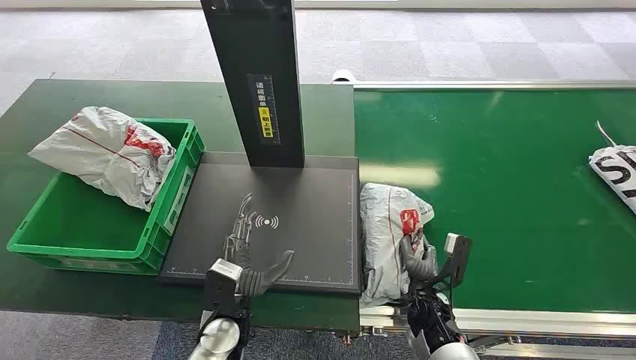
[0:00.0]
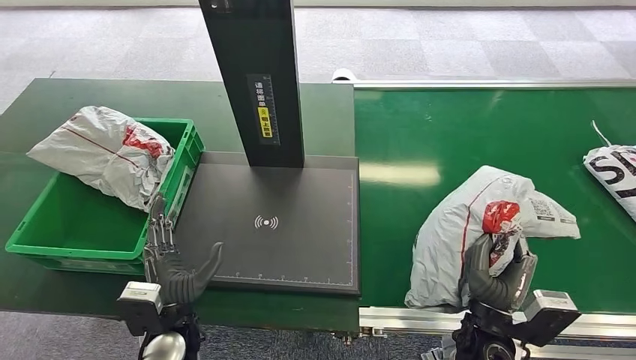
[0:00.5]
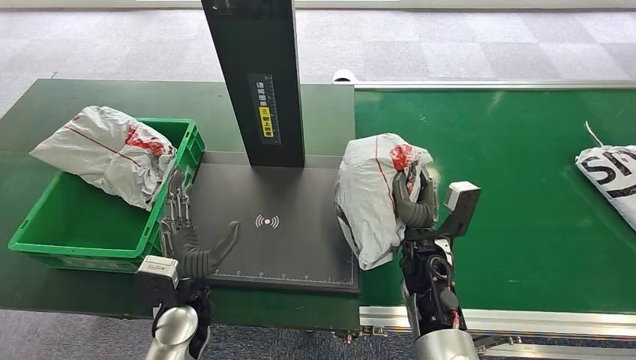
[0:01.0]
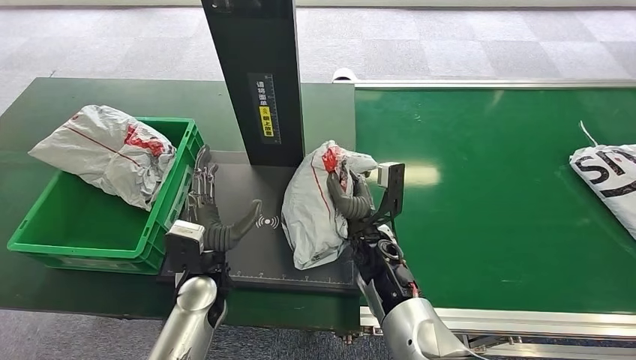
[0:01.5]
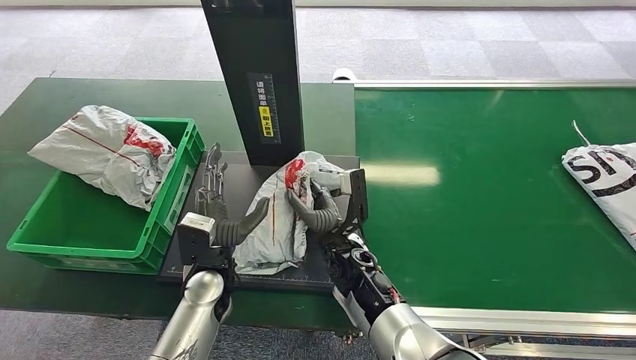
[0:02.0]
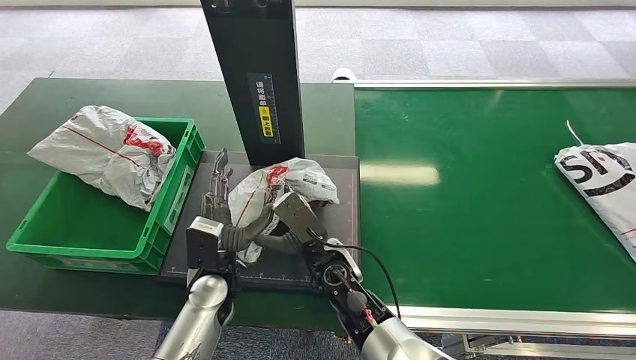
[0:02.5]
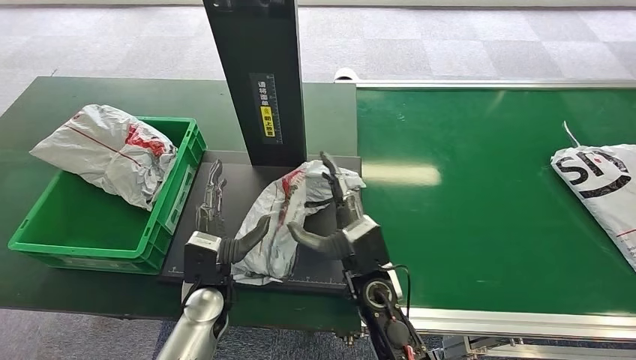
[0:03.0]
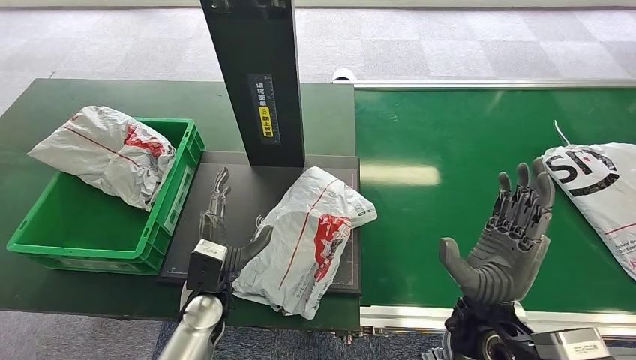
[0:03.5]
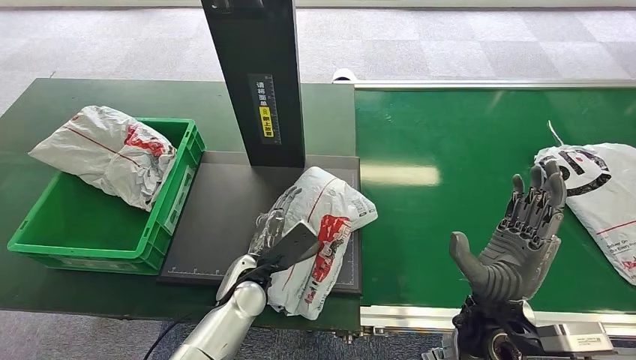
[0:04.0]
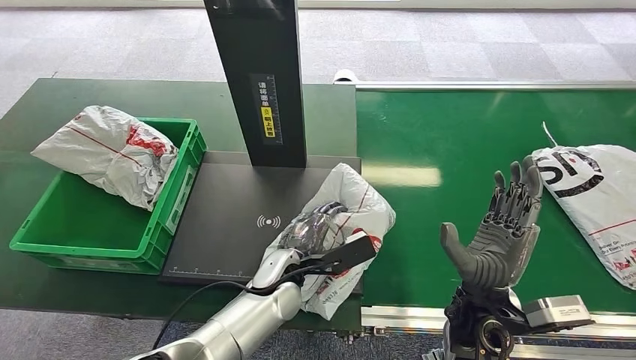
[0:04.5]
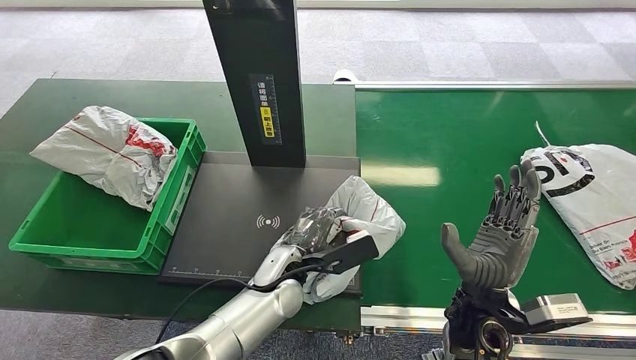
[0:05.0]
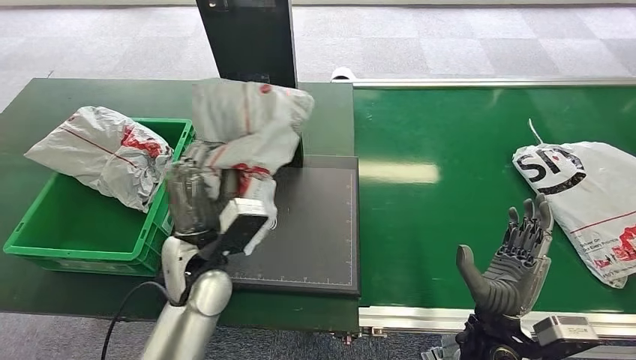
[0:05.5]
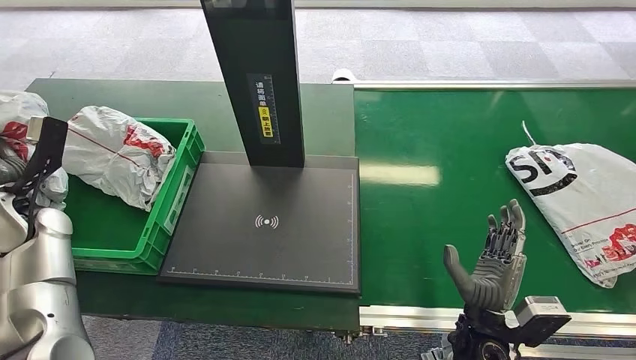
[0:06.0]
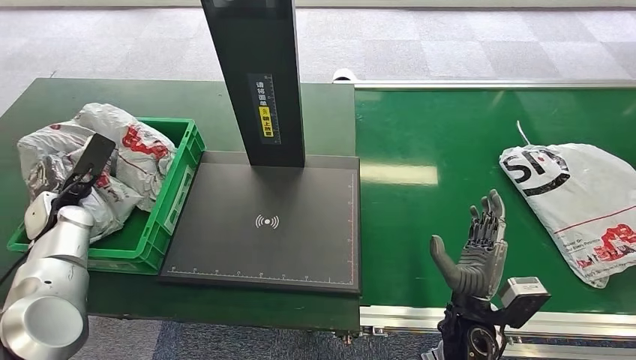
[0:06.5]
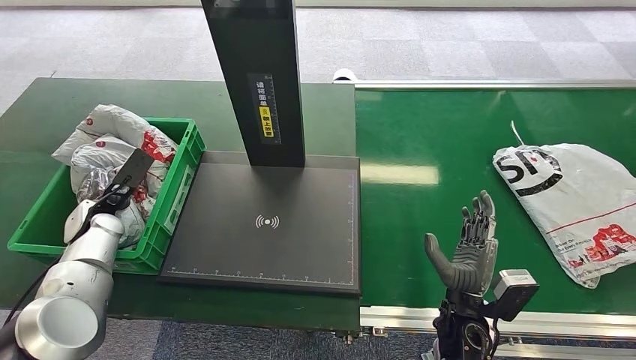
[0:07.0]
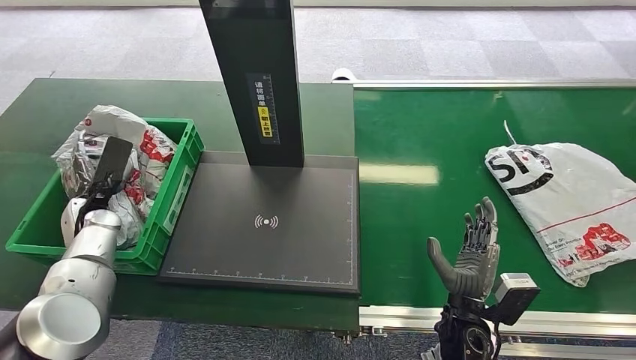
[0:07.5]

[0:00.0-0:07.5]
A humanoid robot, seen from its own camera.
Step, 0:00.0 to 0:01.0: Pick up the package from the conveyor belt.
Step, 0:01.5 to 0:02.5: Place the package onto the inbound machine.
Step, 0:03.0 to 0:05.5: Pick up the package from the inbound machine.
Step, 0:06.0 to 0:07.5: Place the package into the parcel locker.

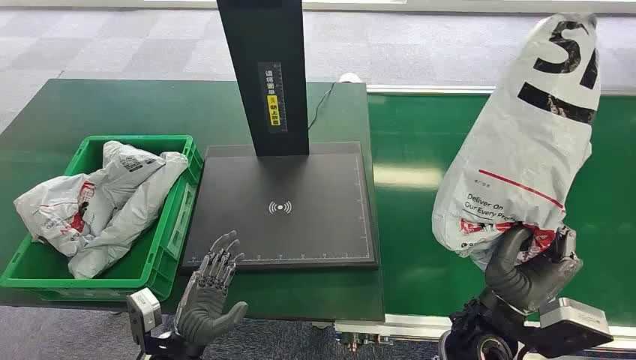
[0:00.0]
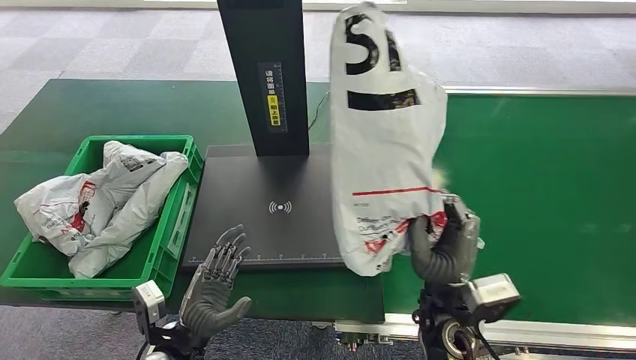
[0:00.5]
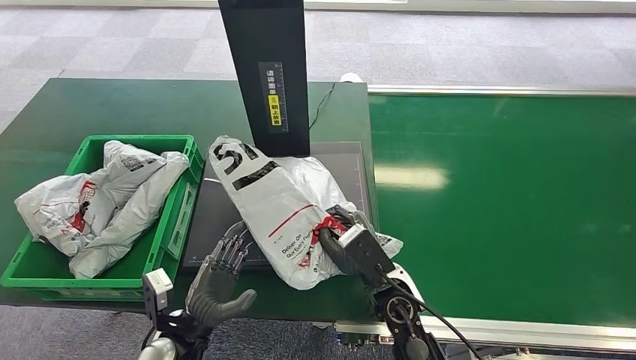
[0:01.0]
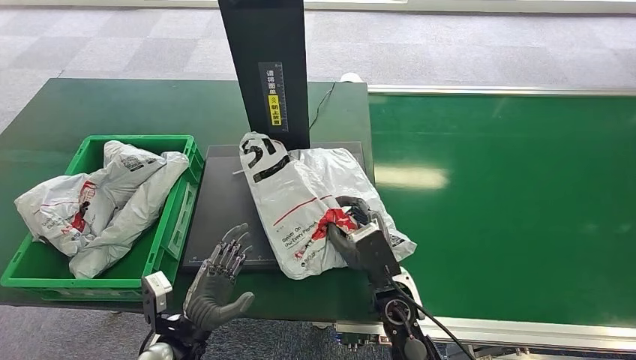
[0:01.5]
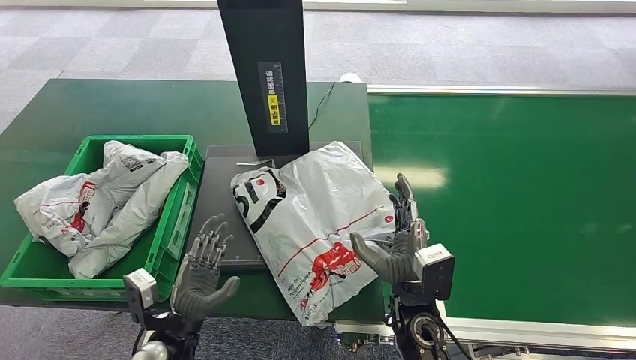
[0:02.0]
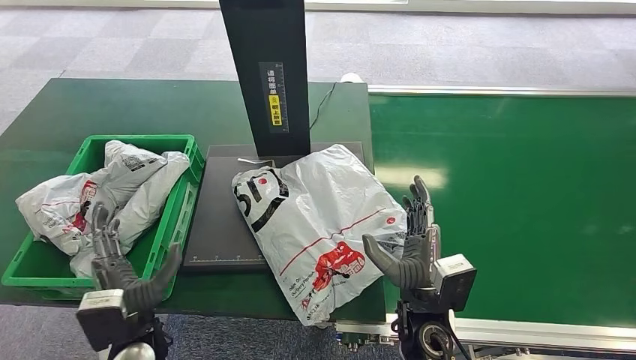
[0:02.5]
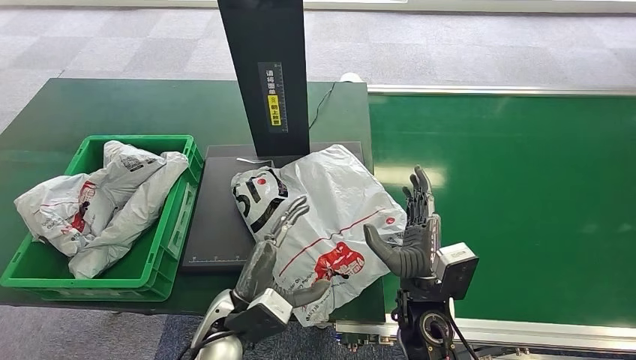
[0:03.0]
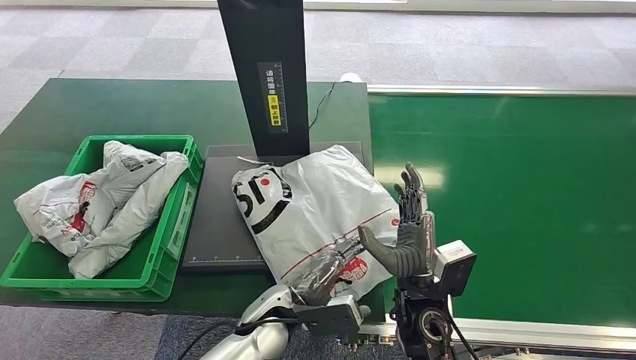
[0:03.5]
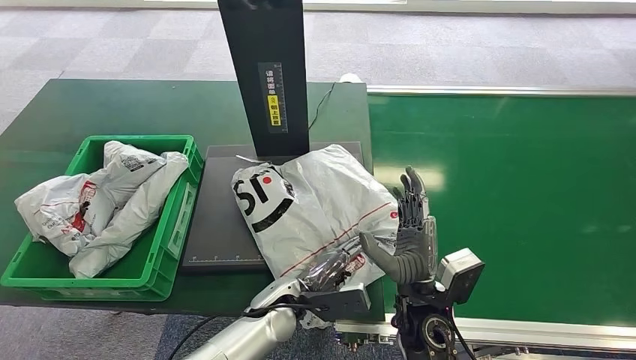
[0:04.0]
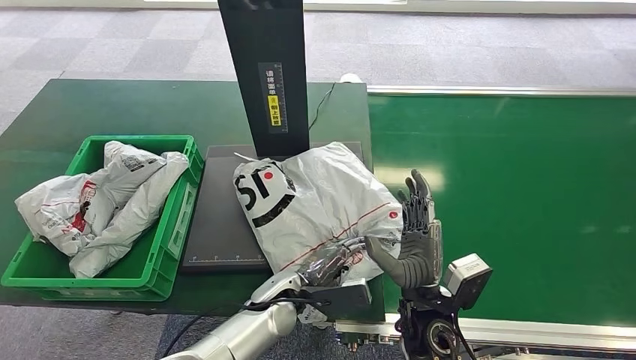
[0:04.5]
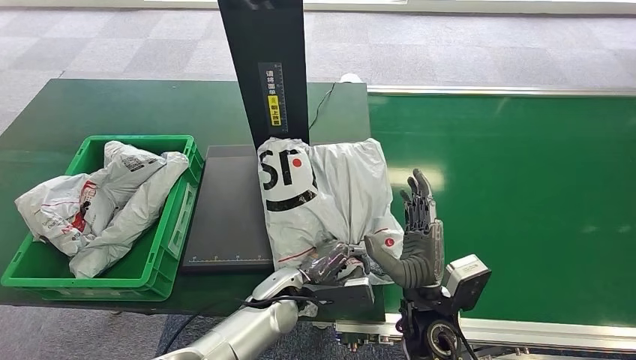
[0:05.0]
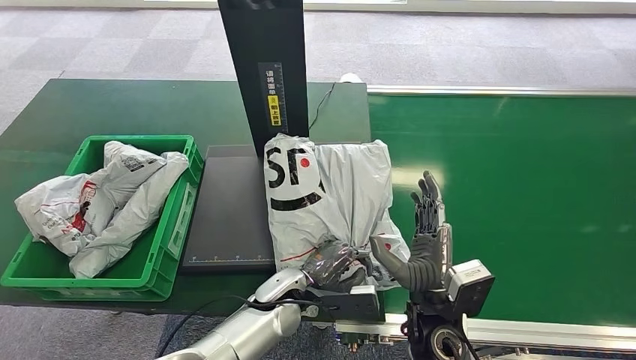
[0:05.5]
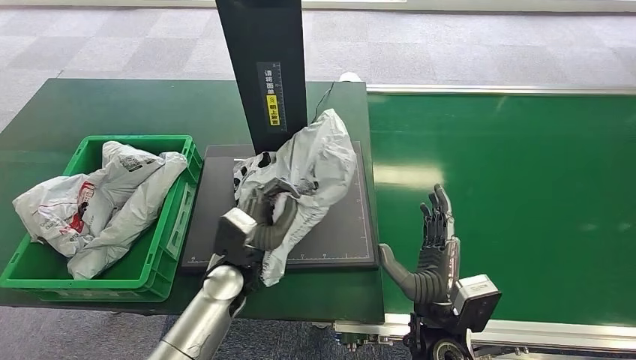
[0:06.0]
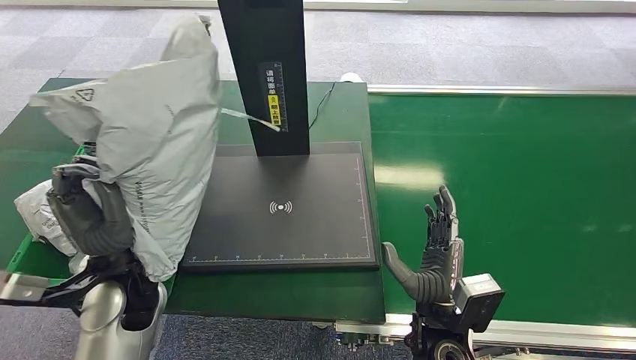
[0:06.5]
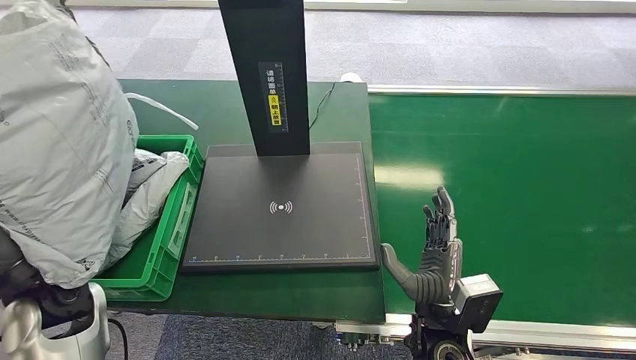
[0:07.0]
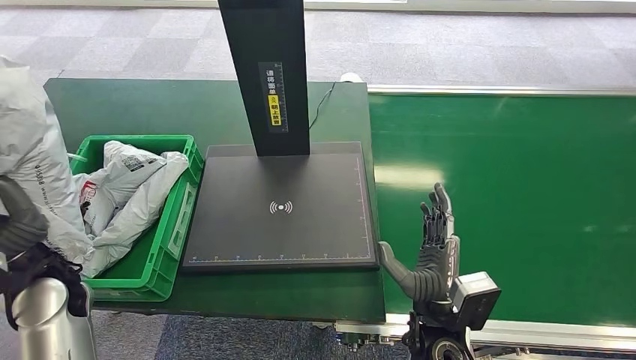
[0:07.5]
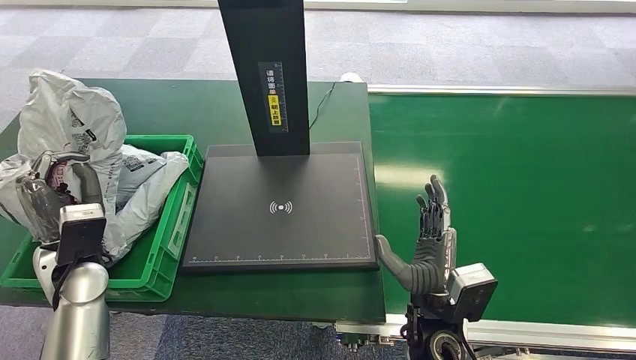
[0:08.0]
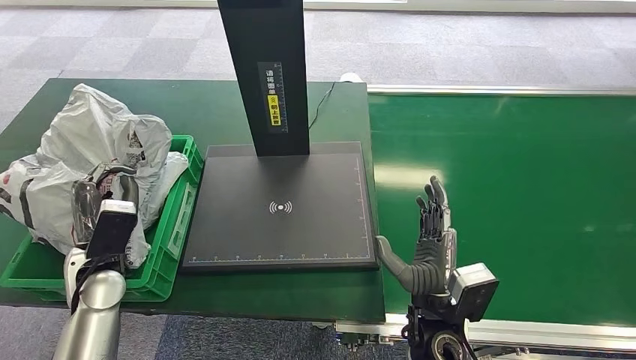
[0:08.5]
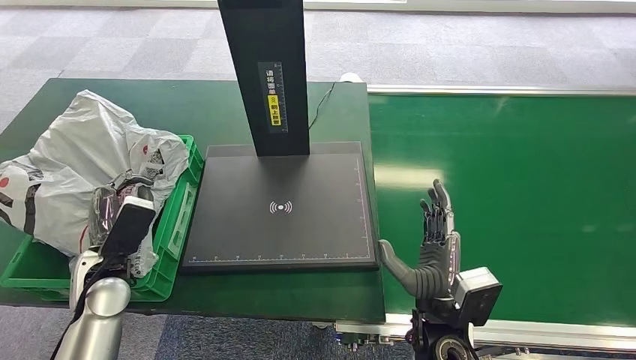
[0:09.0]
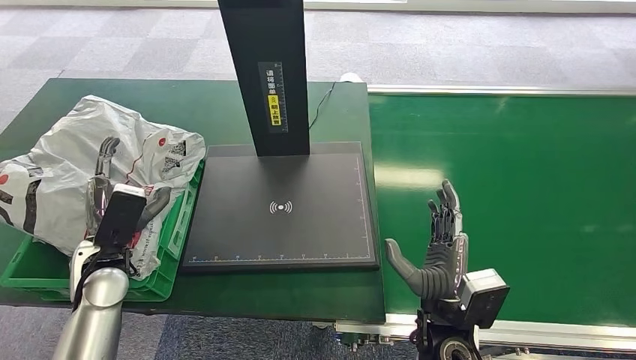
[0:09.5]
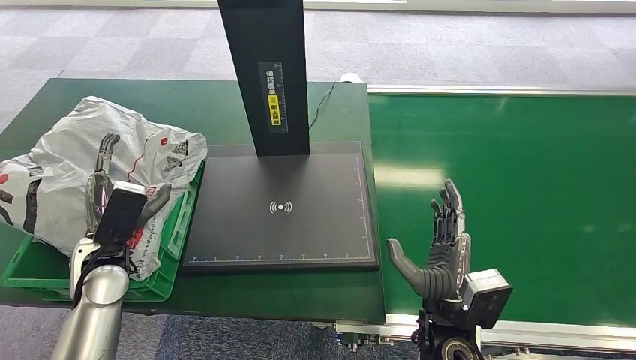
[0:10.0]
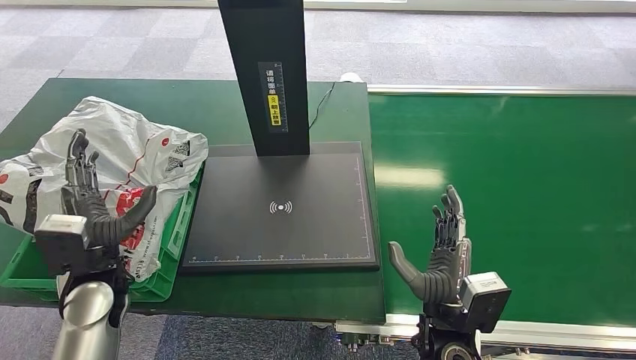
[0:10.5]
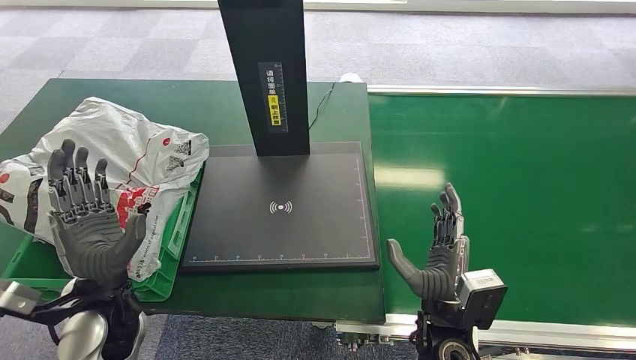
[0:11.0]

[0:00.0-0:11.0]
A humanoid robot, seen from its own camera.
0:02.0 to 0:03.5: The left hand goes approximately 15 cm to the right.
0:03.5 to 0:05.5: The hands stay close to where they were, moving slightly.
0:07.5 to 0:09.0: The left hand goes approximately 5 cm downward.
0:09.0 to 0:11.0: The left hand shifts some 10 cm to the right and backward.
